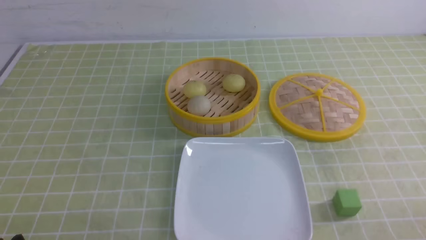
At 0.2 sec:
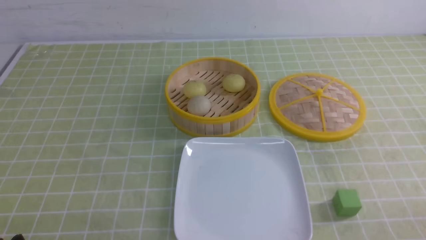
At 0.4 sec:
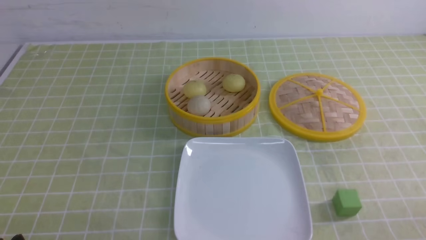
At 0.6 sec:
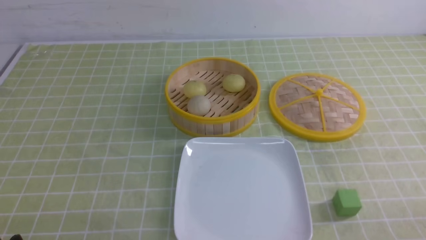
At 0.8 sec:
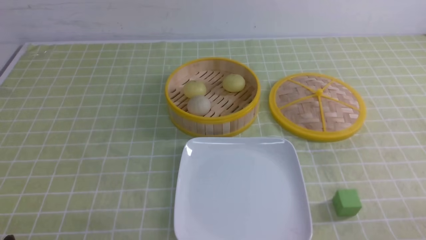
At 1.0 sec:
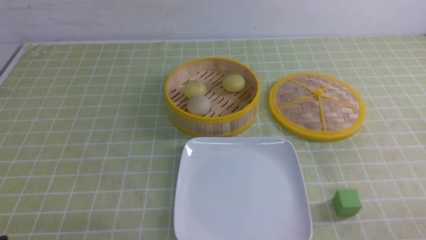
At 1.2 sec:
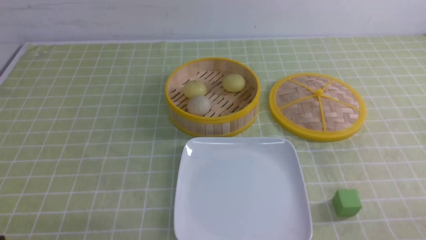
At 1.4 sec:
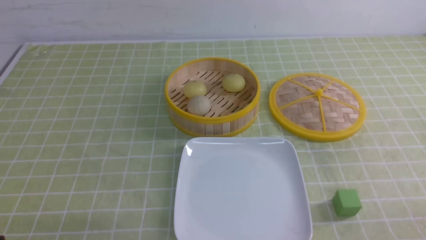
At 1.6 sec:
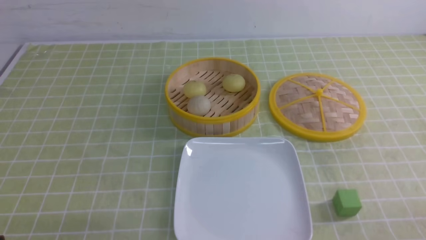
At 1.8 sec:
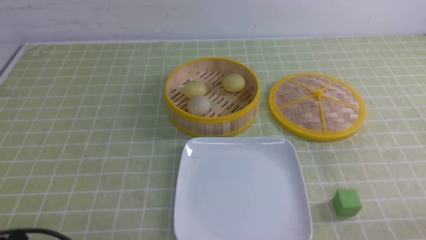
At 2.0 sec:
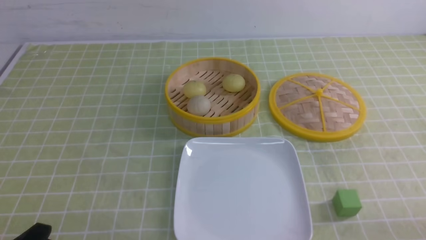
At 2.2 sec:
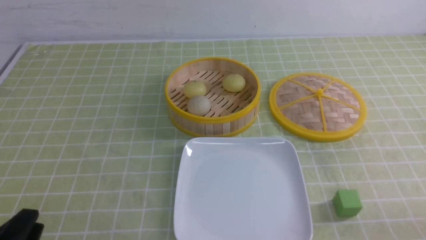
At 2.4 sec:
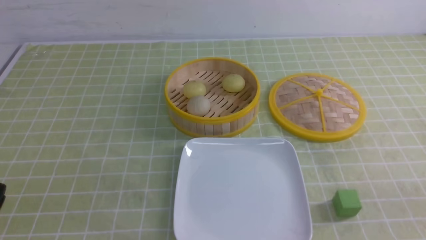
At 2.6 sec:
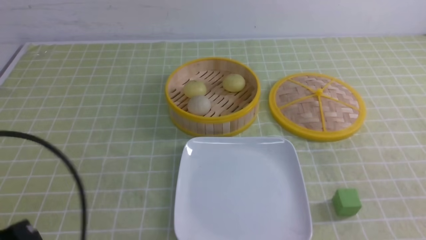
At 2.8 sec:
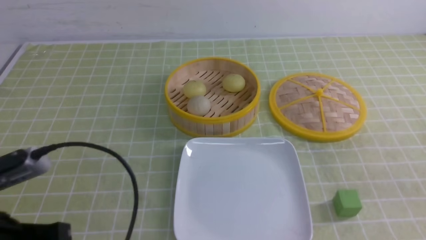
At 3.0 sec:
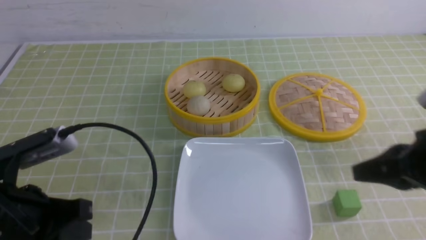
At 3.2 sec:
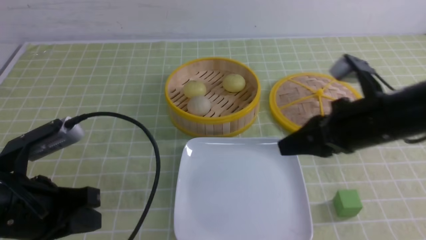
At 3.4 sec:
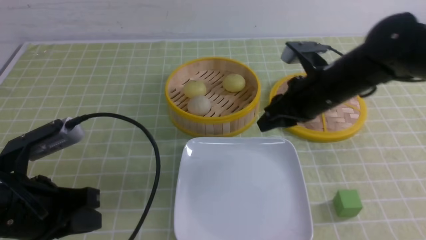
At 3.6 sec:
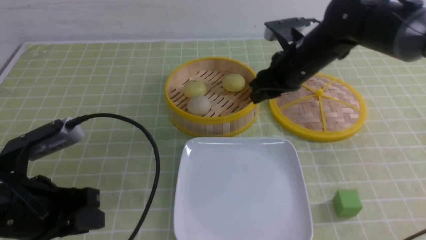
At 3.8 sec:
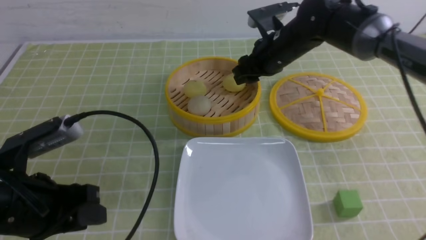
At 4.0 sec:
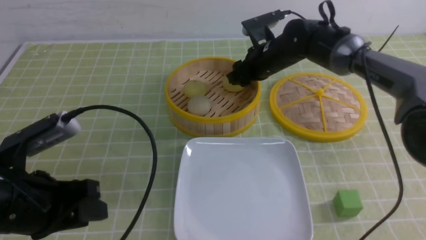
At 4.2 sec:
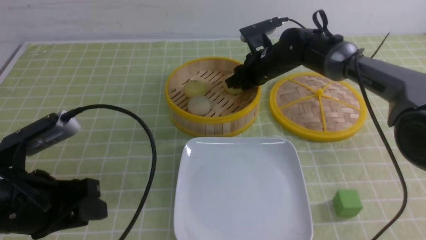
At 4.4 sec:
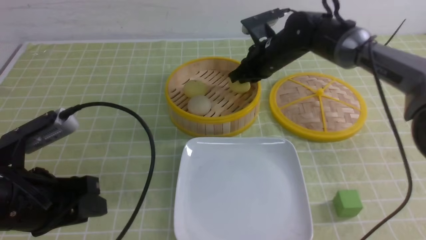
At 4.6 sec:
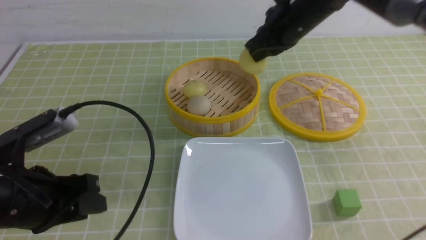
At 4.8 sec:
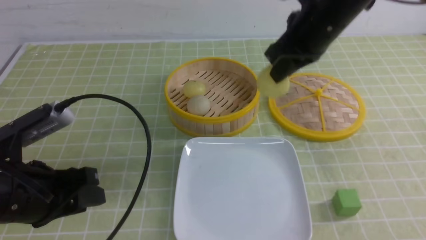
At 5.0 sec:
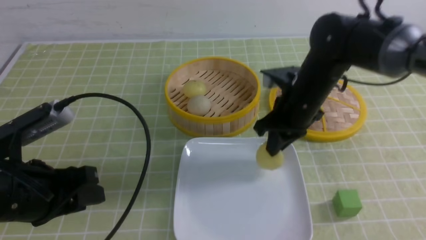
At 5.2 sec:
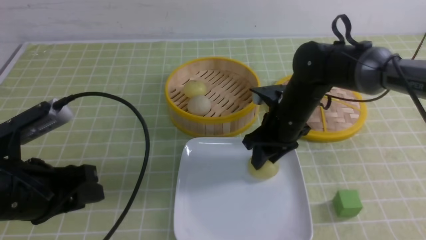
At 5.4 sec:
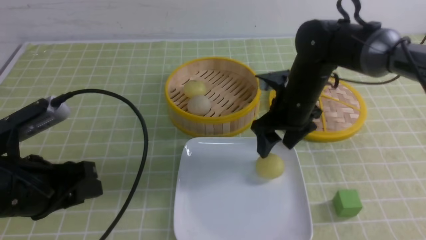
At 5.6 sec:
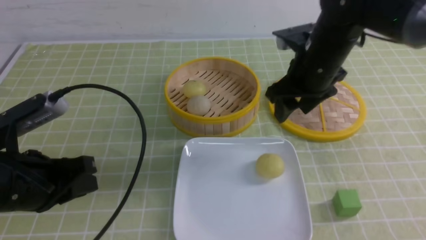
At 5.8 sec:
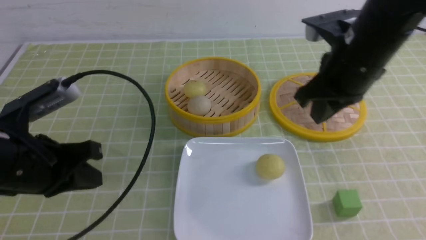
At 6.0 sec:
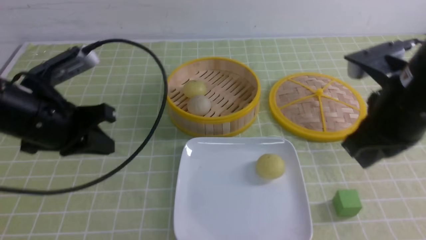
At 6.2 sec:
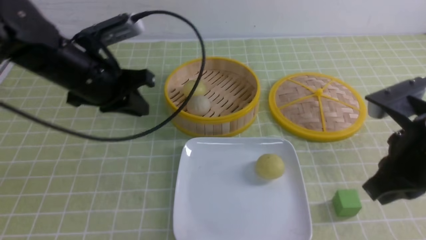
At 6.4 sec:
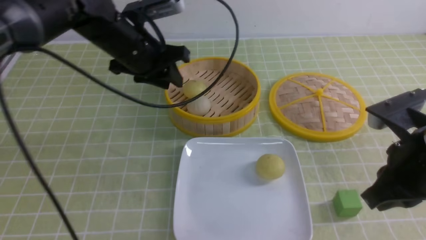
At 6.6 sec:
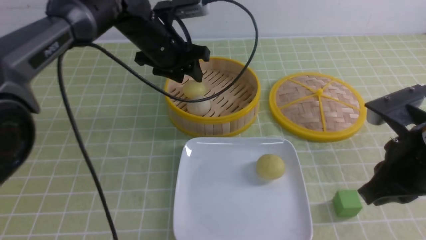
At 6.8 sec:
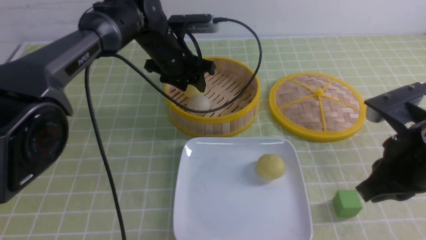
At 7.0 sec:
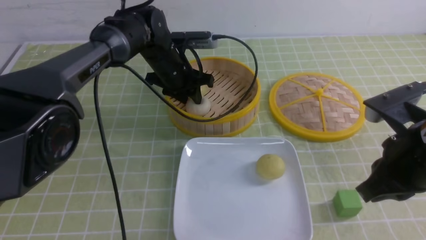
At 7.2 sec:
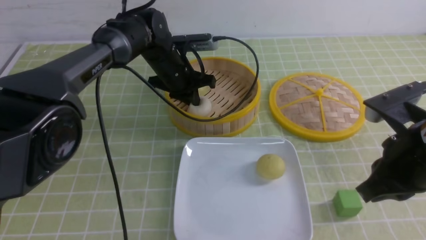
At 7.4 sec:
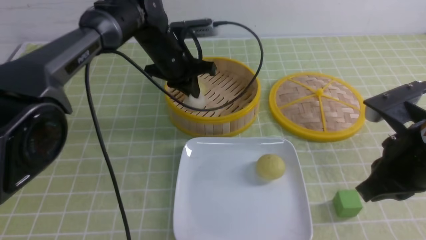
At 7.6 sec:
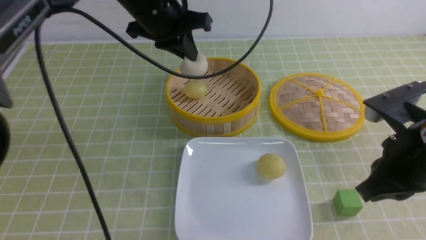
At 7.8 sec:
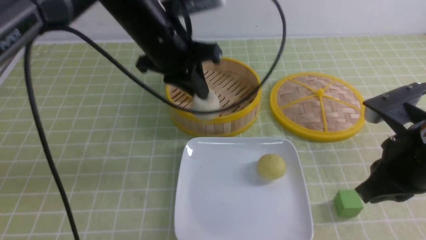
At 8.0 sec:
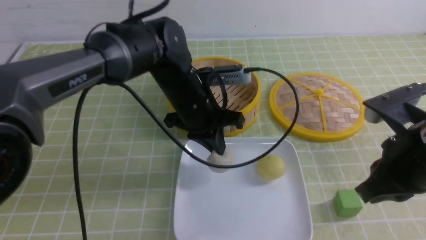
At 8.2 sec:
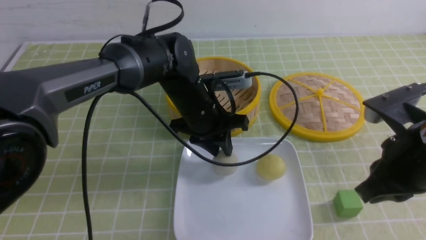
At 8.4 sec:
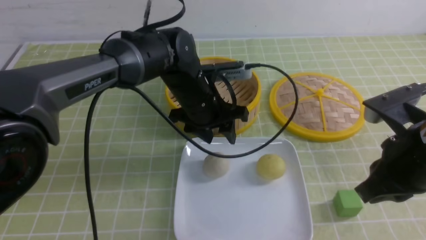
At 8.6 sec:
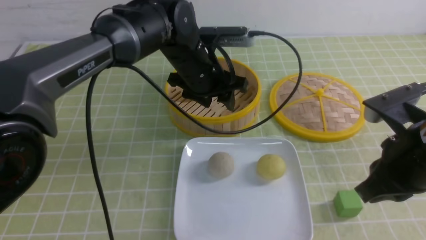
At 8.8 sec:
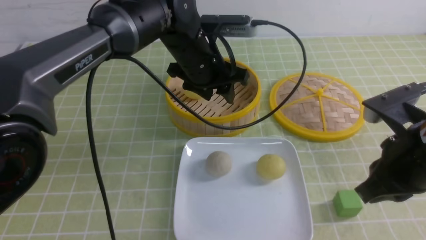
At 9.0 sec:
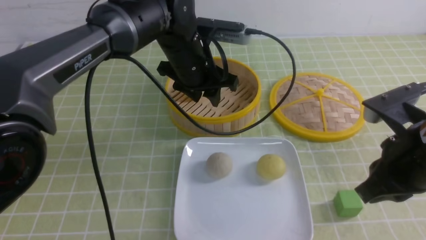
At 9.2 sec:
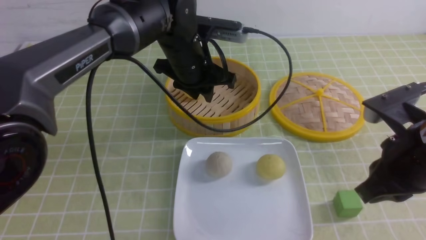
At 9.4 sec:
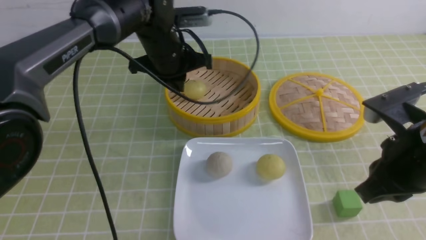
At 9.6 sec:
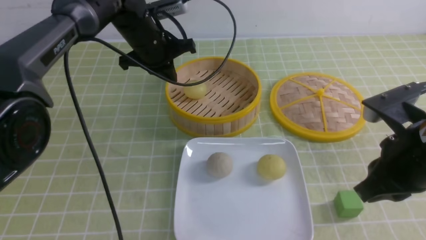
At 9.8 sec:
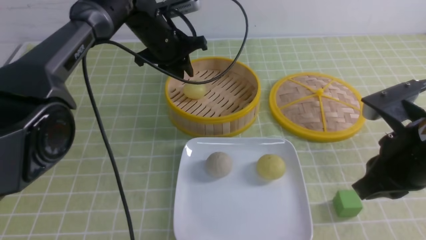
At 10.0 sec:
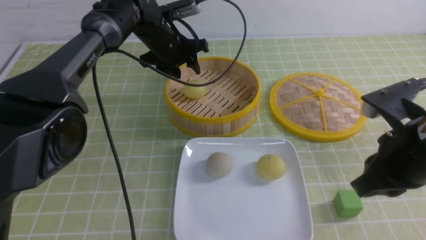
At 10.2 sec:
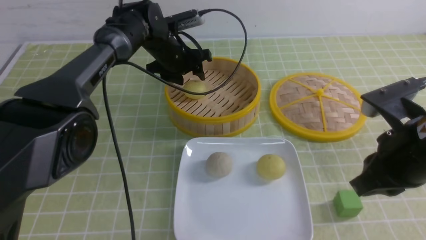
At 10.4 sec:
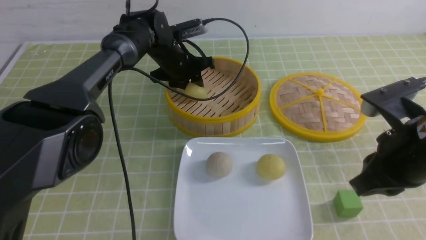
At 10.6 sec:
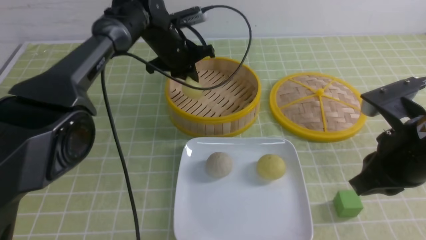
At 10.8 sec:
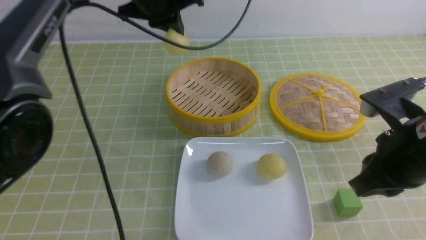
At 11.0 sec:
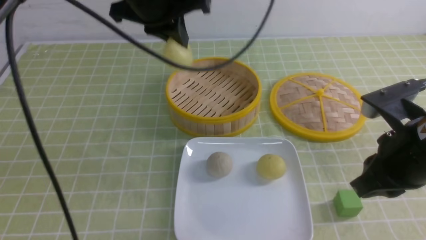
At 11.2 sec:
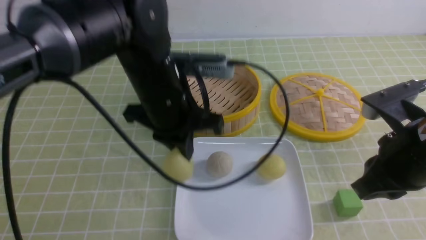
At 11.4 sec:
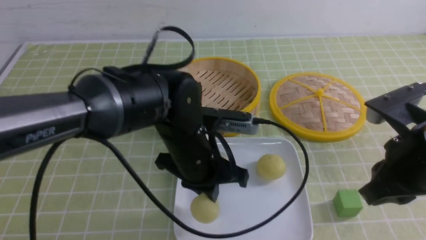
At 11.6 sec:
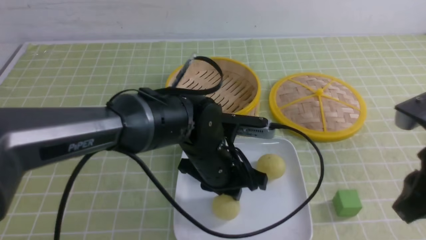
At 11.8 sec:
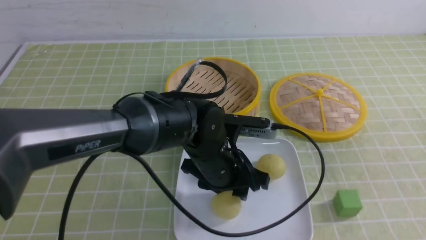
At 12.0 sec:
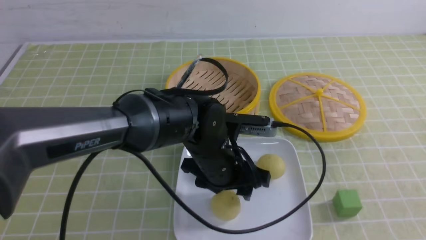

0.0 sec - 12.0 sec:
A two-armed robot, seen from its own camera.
Step, 0.0 sec - 4.2 sec: use the right arm to grab the steamed stuffed bun that is closest to it.
Step, 4.4 sec - 5.2 sec: use the right arm to put the steamed stuffed bun into the plate.
Step, 5.4 sec - 7.4 sec: use the left arm to grab the steamed stuffed bun that is closest to it.
Step, 7.6 sec - 8.4 sec: use the left arm to put the steamed stuffed bun into the plate.
Step, 8.6 sec - 10.4 sec: use the left arm to grab the steamed stuffed bun that is closest to it.
Step, 10.6 sec - 11.6 sec: use the left arm to put the steamed stuffed bun into the plate.
1.6 sec - 3.0 sec: The right gripper shifts approximately 20 cm forward, upward and to the left, and closes up. Meanwhile the left gripper travels forward and upward by approximately 10 cm, and closes.
3.0 sec - 4.4 sec: The right gripper travels forward and to the left by roughly 30 cm, and opens, then closes again, while the left gripper opens.
4.4 sec - 6.0 sec: The right gripper shifts roughly 25 cm backward, and opens and closes again, while the left gripper moves forward, roughly 10 cm, and closes.
6.0 sec - 7.6 sec: The right gripper changes place by about 5 cm, while the left gripper is displaced forward and to the right by roughly 20 cm, and opens and closes again.
7.6 sec - 9.0 sec: The left gripper opens up.
9.0 sec - 10.4 sec: The left gripper goes some 15 cm forward and downward.
10.4 sec - 12.0 sec: The left gripper moves backward, approximately 25 cm, and opens up. Meanwhile the right gripper shifts about 20 cm backward, to the right and upward.

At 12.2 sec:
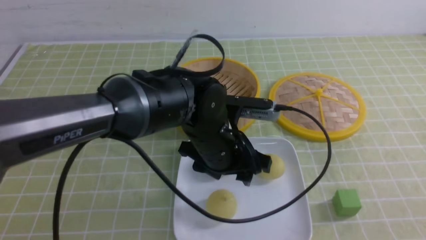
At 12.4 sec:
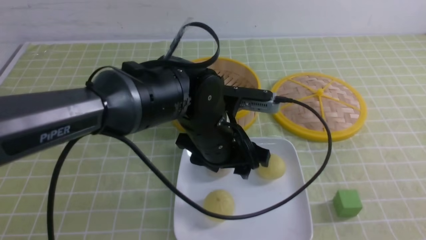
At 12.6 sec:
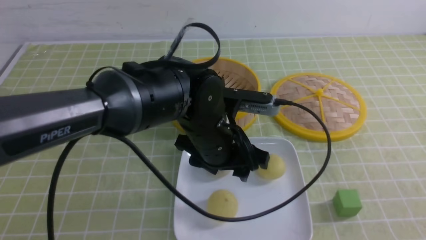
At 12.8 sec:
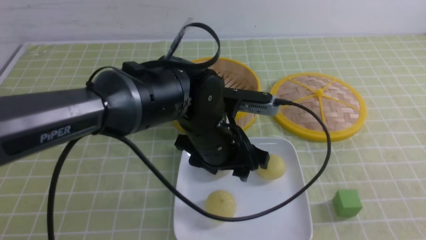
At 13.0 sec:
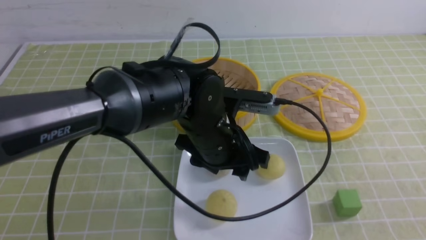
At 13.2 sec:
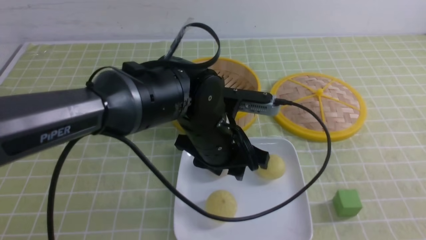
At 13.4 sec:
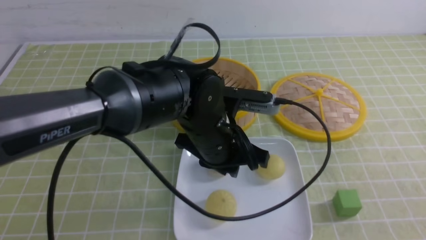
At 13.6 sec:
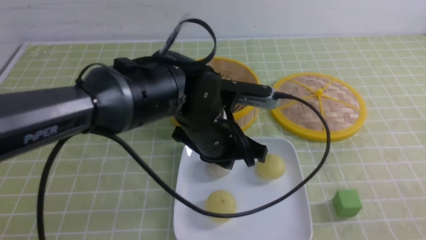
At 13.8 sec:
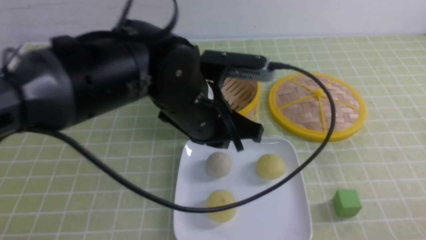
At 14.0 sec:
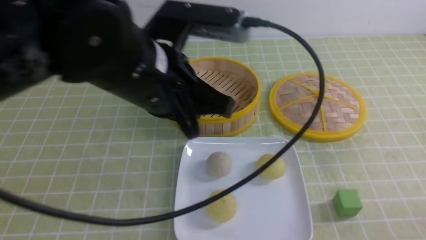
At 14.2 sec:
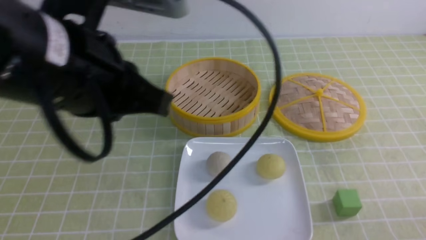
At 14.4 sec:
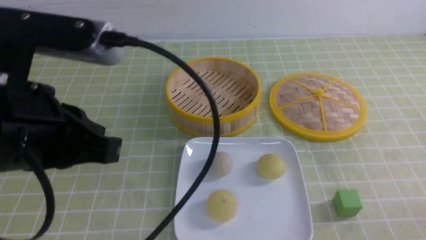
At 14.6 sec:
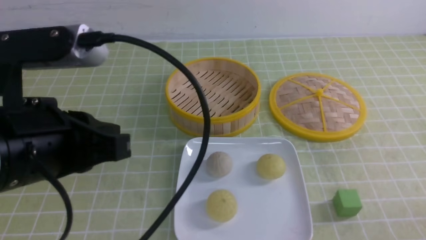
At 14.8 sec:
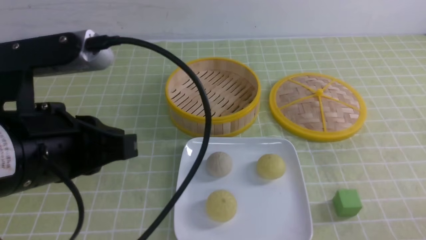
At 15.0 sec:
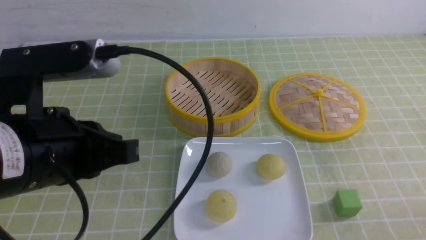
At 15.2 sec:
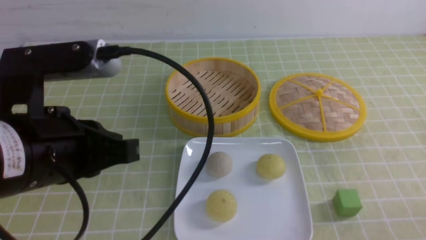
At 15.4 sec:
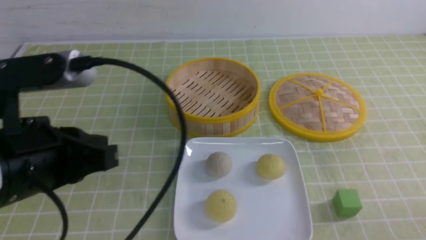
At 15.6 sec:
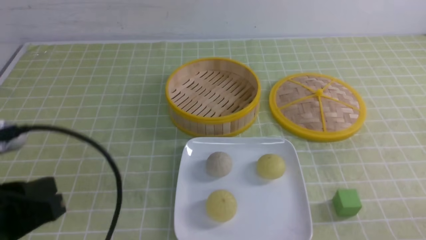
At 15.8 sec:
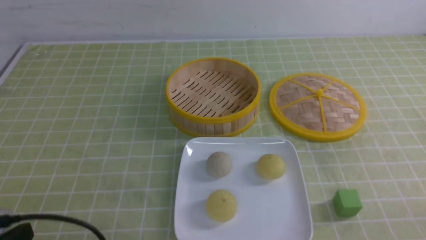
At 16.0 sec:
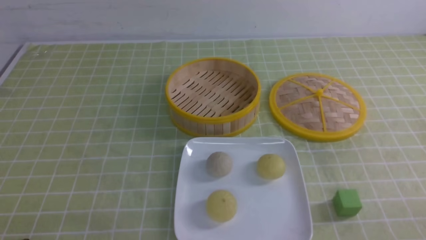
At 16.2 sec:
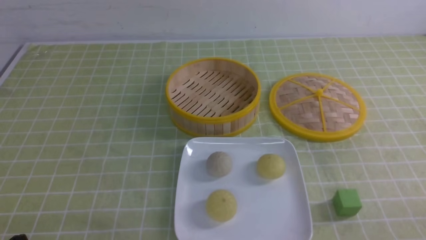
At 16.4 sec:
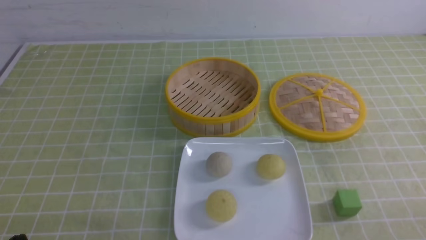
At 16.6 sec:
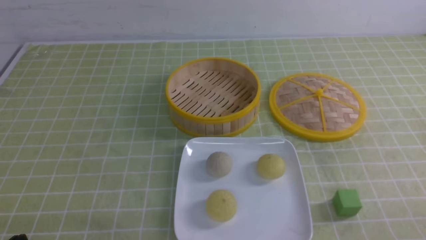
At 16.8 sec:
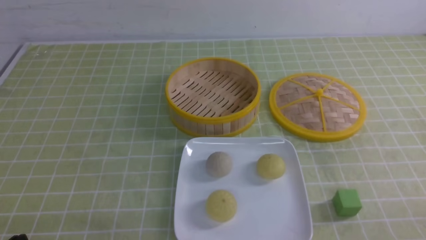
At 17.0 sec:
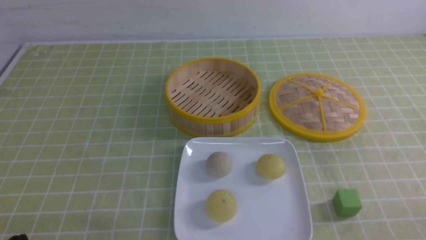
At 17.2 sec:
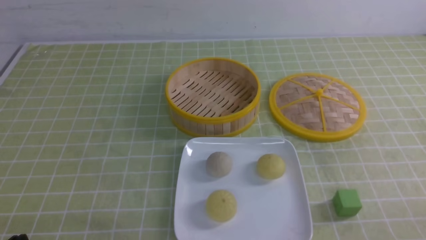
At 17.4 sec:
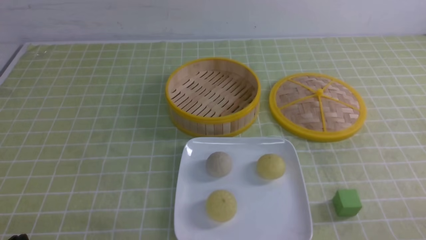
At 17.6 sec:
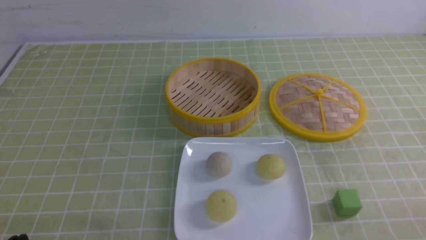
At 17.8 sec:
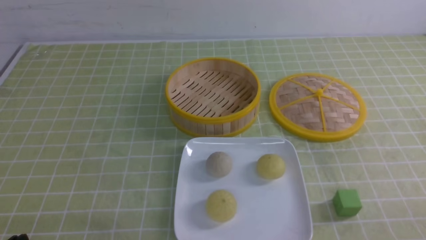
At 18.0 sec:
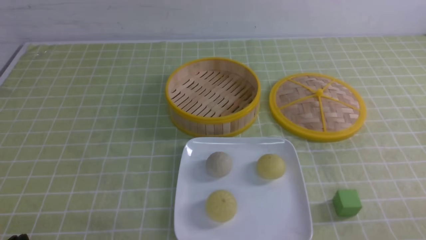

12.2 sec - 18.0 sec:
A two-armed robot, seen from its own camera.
12.2 sec - 13.6 sec: The left gripper closes up, while the right gripper is displaced downward by about 10 cm.
13.6 sec - 15.0 sec: The left gripper is displaced to the left, backward and upward by about 20 cm.
15.0 sec - 16.6 sec: The left gripper moves downward, to the left and backward, approximately 20 cm.
16.6 sec - 18.0 sec: Both grippers stay put.
